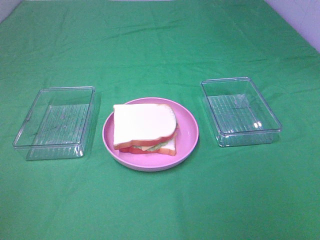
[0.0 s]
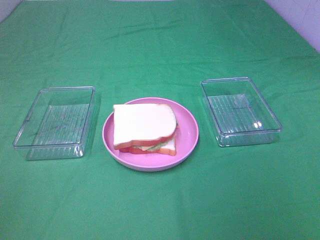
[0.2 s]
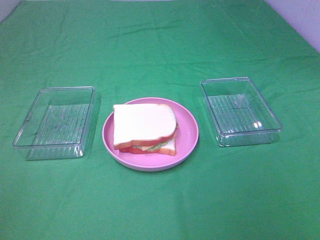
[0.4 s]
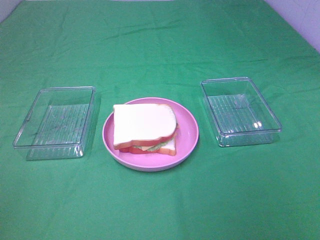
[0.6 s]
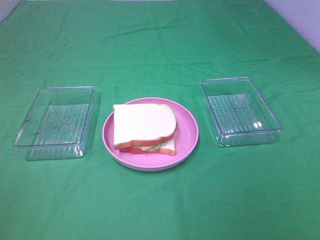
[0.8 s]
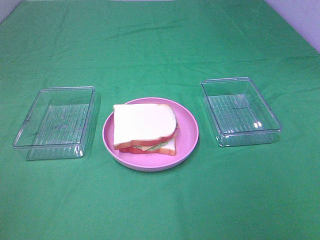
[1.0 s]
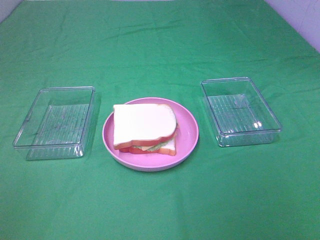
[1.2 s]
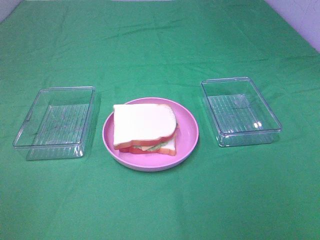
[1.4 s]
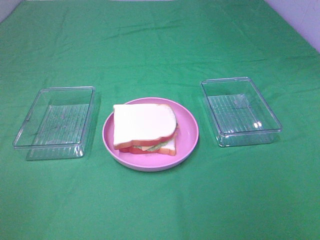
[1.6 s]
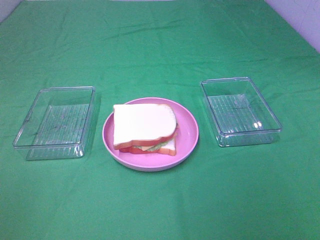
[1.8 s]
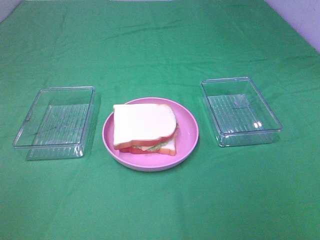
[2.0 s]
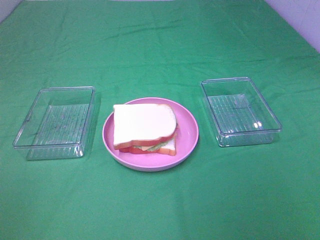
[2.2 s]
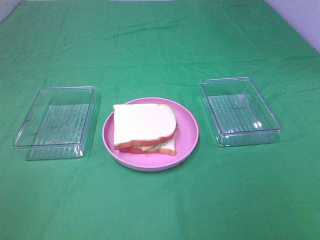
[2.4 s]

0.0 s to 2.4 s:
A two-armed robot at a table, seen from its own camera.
Task of the whole recording: Make sandwiches.
1.2 to 2.4 s: The two grippers keep their place.

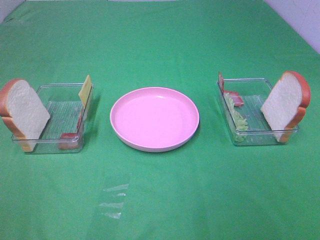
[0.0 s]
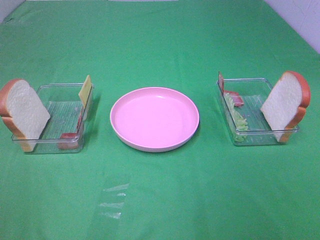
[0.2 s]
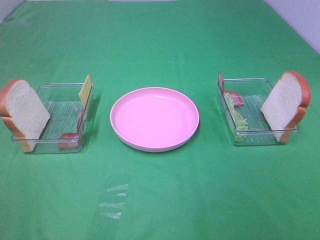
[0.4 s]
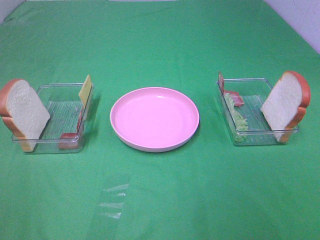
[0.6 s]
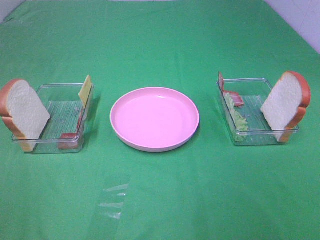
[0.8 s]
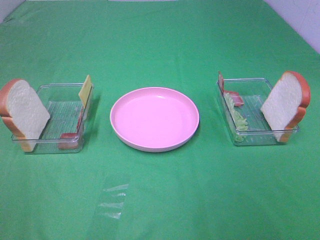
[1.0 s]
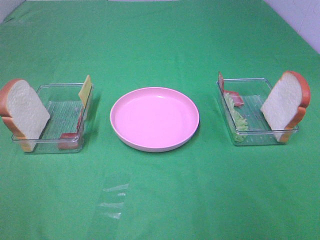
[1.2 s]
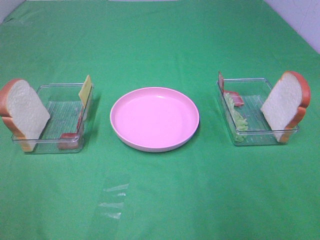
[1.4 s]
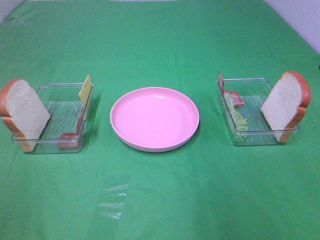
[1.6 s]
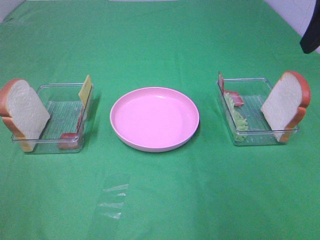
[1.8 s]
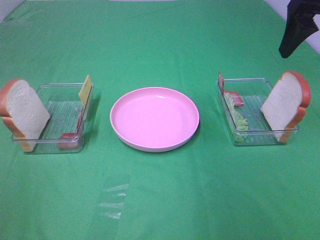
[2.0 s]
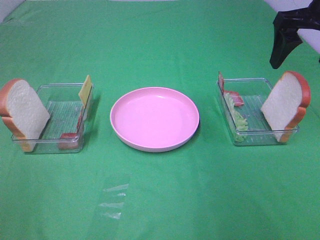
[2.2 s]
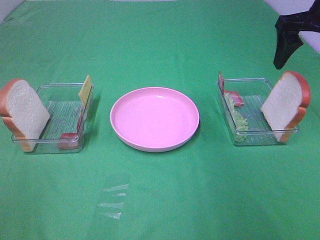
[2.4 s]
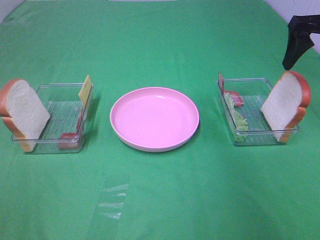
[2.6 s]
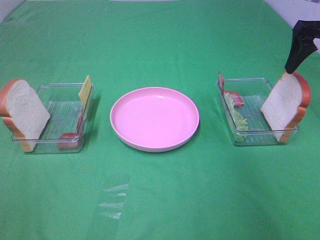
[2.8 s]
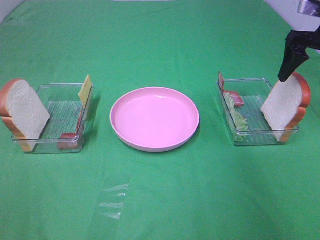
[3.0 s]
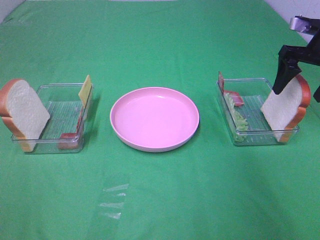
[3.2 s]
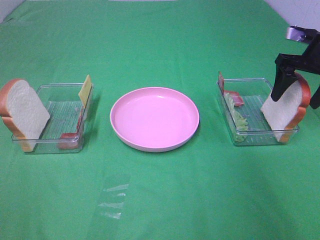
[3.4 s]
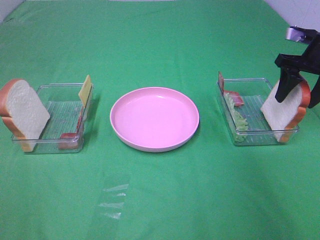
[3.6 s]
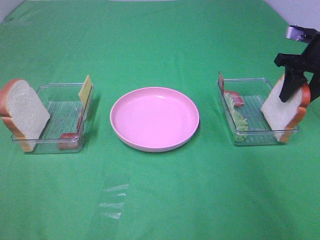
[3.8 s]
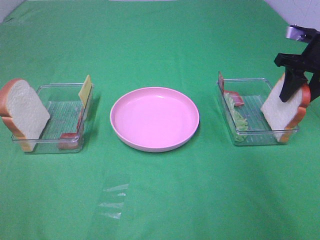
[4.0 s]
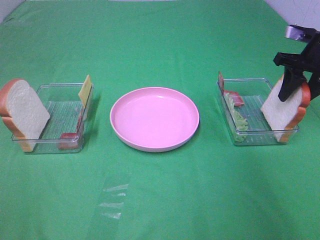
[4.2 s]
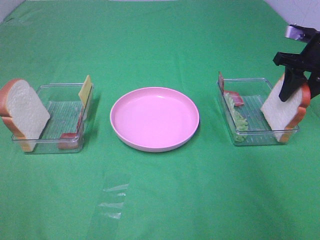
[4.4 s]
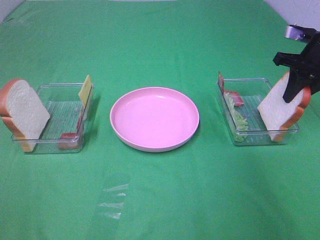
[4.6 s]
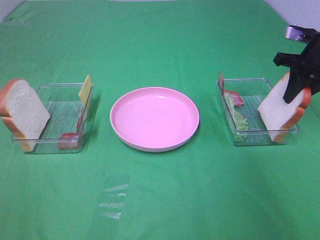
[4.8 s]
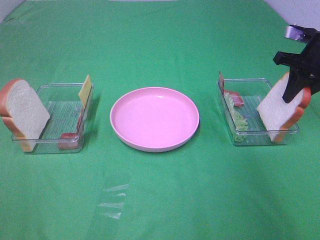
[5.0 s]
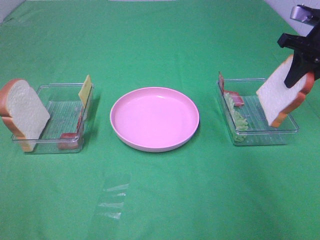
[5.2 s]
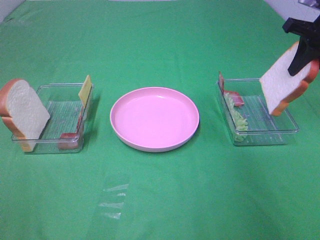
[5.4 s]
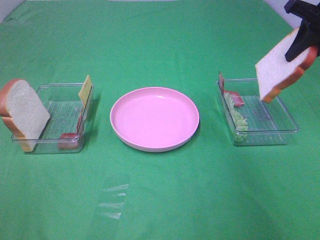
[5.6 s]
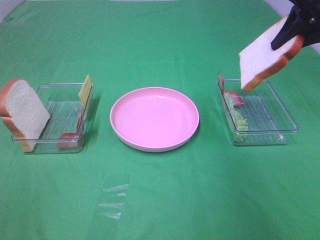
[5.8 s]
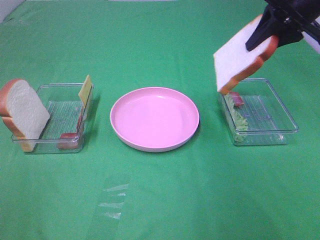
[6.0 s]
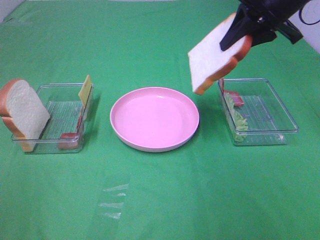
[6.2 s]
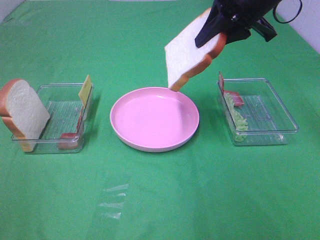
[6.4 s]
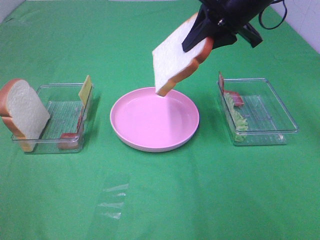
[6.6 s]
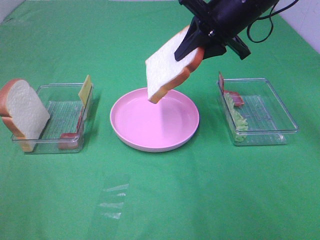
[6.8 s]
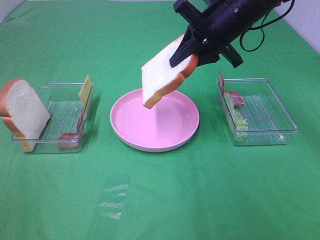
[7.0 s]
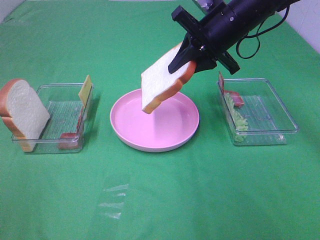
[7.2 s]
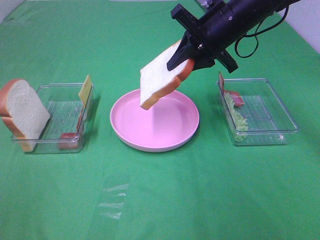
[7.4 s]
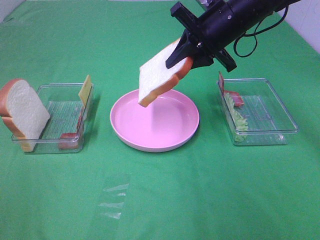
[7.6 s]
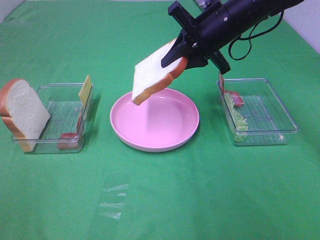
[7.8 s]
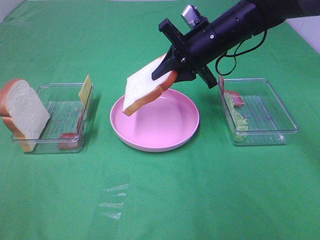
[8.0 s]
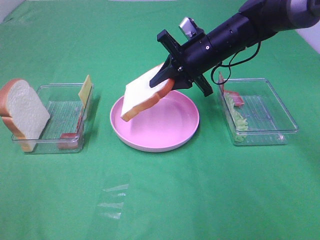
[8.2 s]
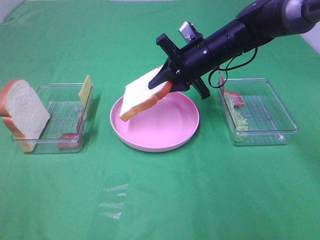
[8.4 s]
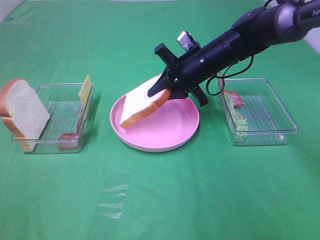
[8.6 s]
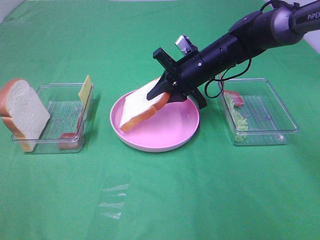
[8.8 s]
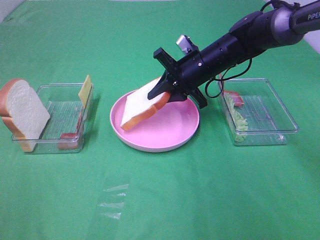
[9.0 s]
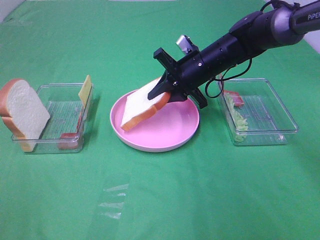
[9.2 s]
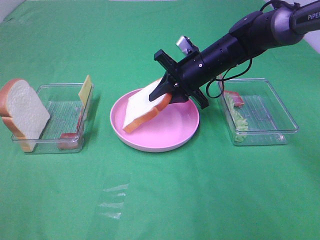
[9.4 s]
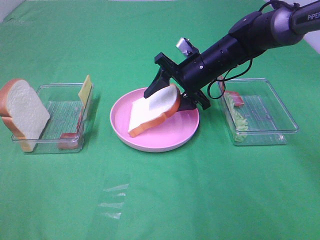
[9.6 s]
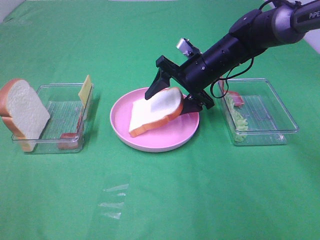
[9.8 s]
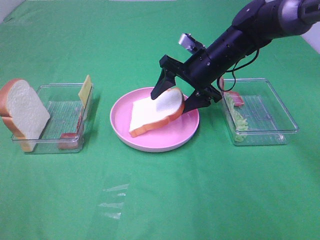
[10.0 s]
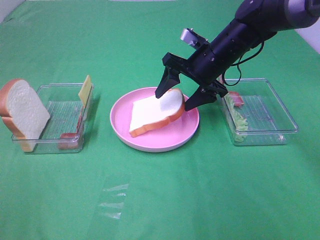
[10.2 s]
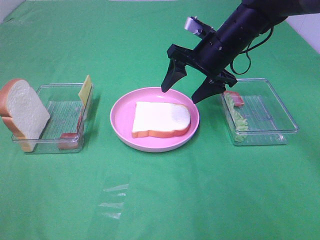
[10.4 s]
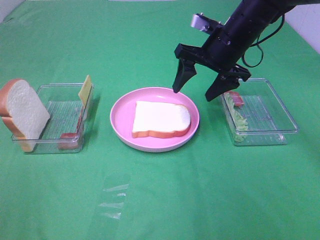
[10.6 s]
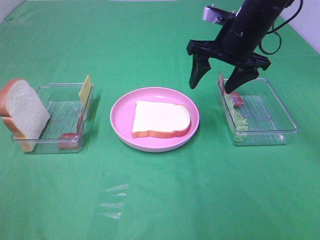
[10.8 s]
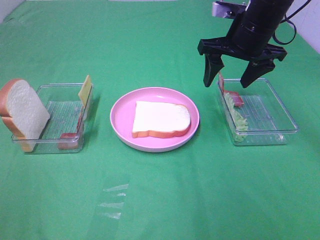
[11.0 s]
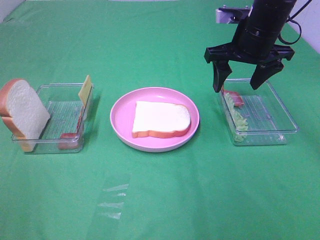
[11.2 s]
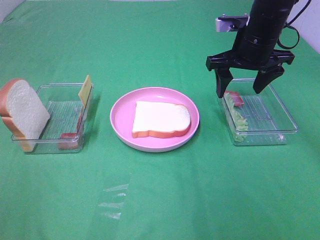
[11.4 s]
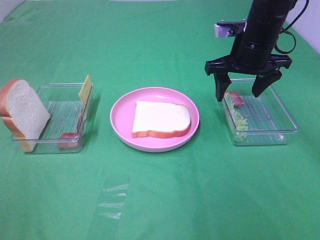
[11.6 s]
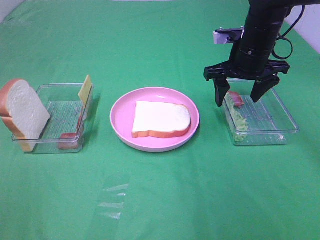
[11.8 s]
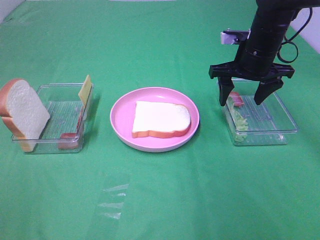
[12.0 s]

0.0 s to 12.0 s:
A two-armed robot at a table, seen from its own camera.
Task of the whole recording: Make sandwiches.
Step, 0.0 to 4.8 s: Right hand:grab the bread slice.
Step, 5.0 to 10.4 s: Right hand:place the bread slice on the plate.
1.6 to 3.0 s: The right gripper is displaced forward and downward by roughly 25 cm.
3.0 to 4.4 s: The right gripper closes up.
4.4 to 6.0 s: The right gripper shifts about 15 cm upward and to the left.
6.0 to 7.6 s: The right gripper is displaced to the left and downward by approximately 10 cm.
7.6 to 9.0 s: The right gripper heads downward, covering approximately 10 cm.
9.0 to 10.4 s: The right gripper goes some 5 cm upward, and opens its fingers.
10.4 to 12.0 s: The right gripper is displaced to the right by approximately 5 cm.

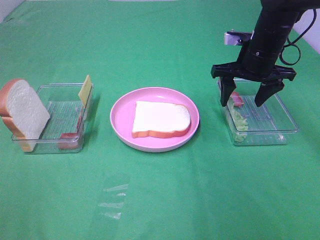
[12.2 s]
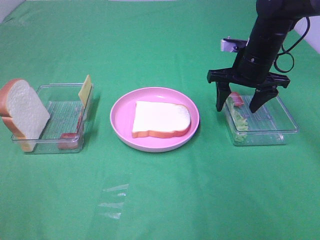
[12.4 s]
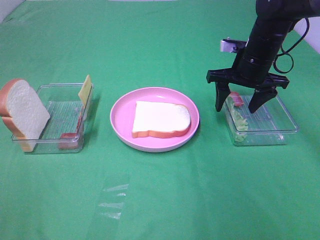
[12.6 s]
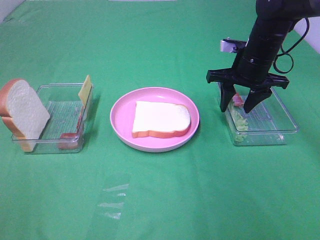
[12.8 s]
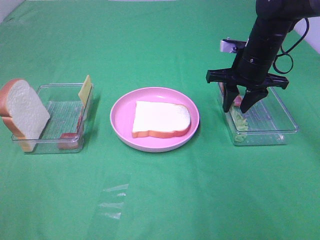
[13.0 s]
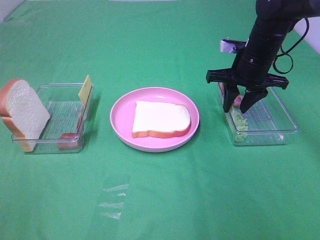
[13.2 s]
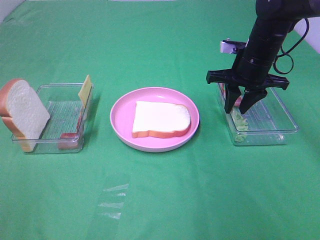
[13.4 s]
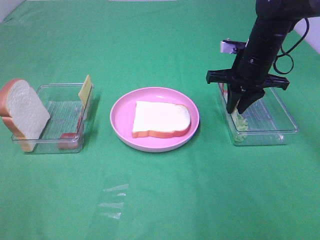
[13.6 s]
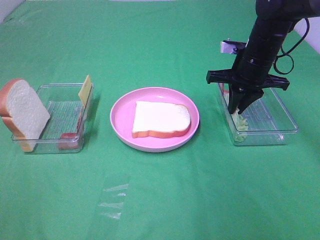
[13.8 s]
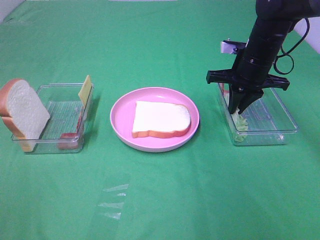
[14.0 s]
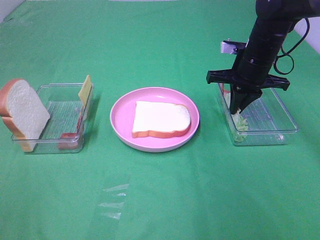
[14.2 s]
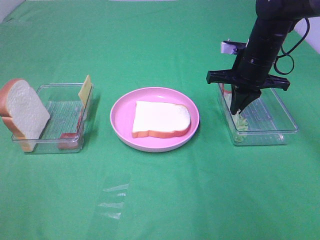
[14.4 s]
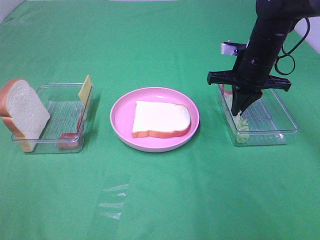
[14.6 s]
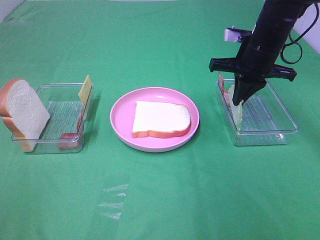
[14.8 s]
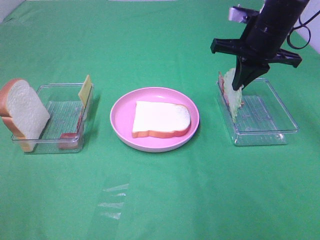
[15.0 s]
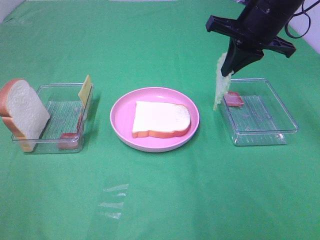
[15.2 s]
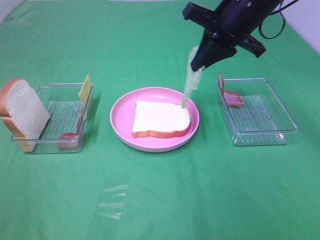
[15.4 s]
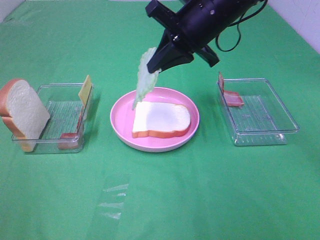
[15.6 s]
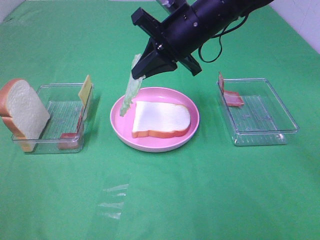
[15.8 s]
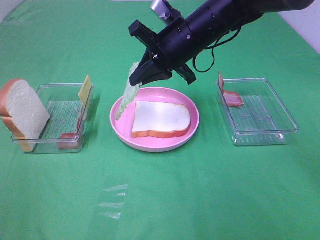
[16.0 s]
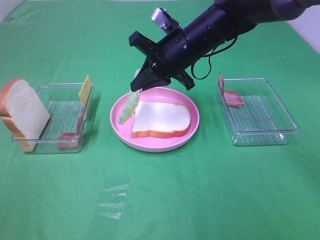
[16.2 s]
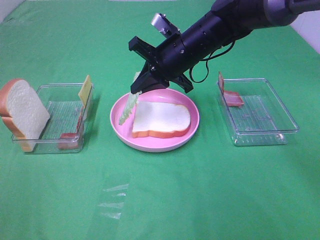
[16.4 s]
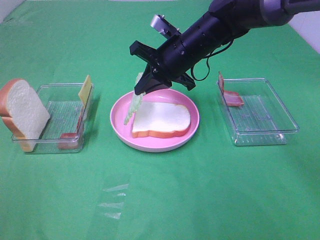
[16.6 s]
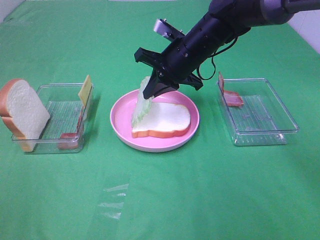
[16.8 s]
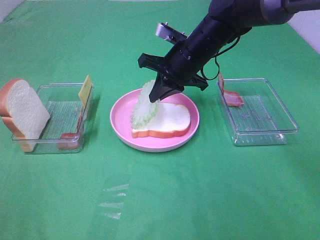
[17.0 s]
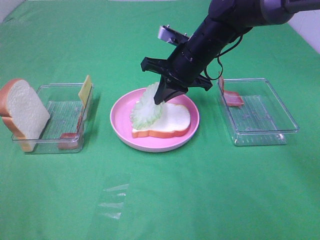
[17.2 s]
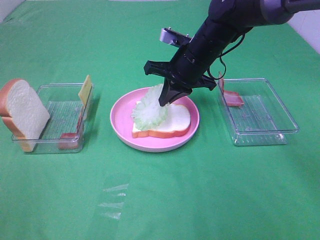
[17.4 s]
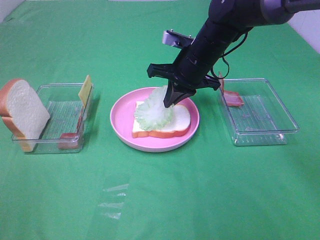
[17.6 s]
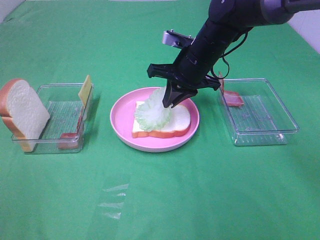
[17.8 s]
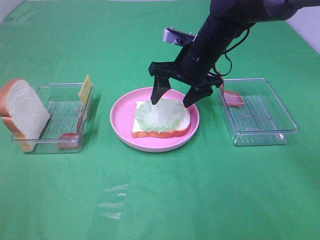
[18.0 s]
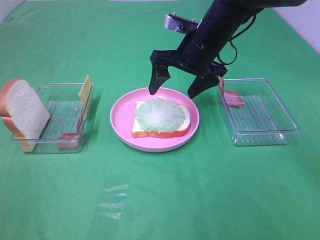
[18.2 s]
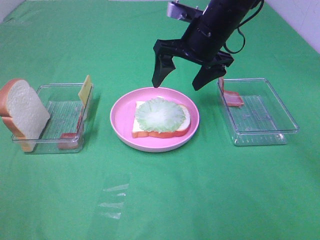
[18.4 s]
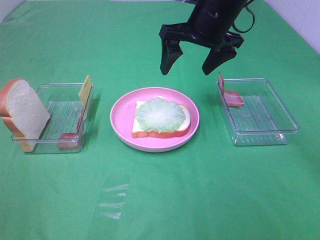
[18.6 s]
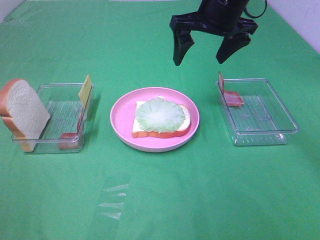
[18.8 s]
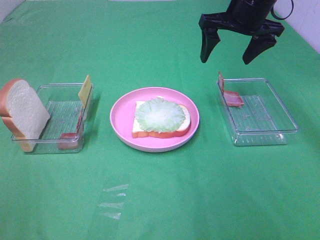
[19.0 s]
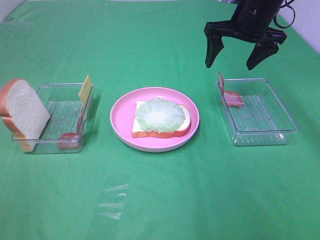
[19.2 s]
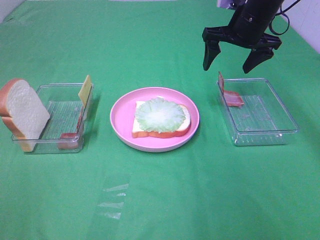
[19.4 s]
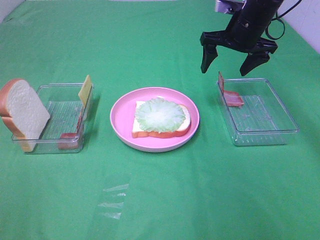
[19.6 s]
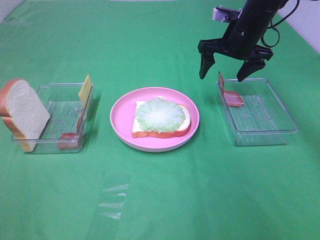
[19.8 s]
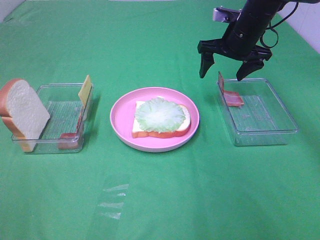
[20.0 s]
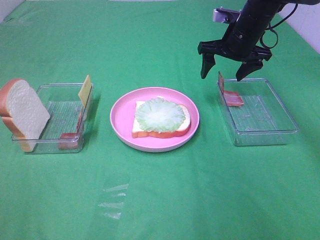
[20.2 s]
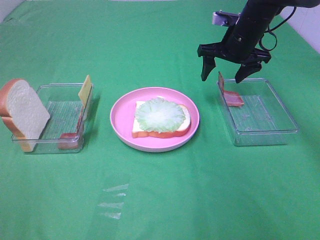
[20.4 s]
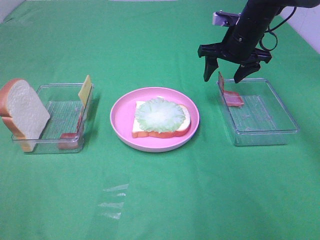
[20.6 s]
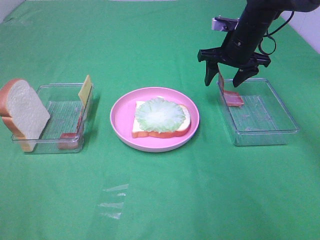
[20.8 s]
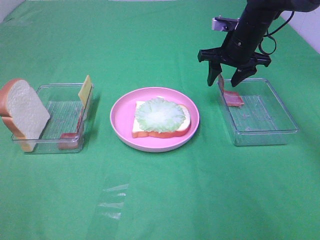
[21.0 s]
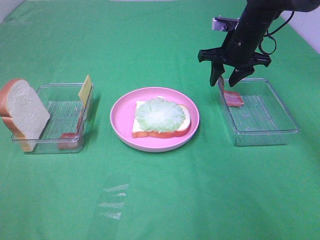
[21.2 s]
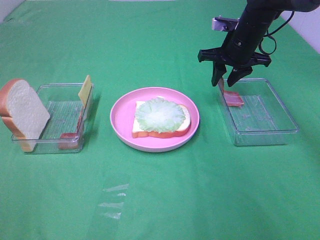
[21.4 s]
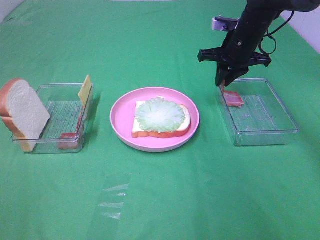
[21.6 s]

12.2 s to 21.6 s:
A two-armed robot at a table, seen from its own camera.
Task of the whole recording: Make sandwiches.
Step, 12.2 to 14.4 s: Right hand:grab the lettuce slice.
Step, 14.6 to 18.0 s: Right hand:place the lettuce slice on the bread slice.
12.2 to 13.8 s: The right gripper closes its fingers.
13.8 to 15.4 s: The right gripper heads upward and to the left, covering approximately 10 cm.
15.4 to 17.0 s: The right gripper travels downward and to the left by roughly 10 cm.
17.0 to 18.4 s: The right gripper shifts about 5 cm upward, and opens its fingers.
18.4 to 20.0 s: The right gripper shifts roughly 10 cm to the right and forward.
20.0 to 21.6 s: The right gripper closes.
